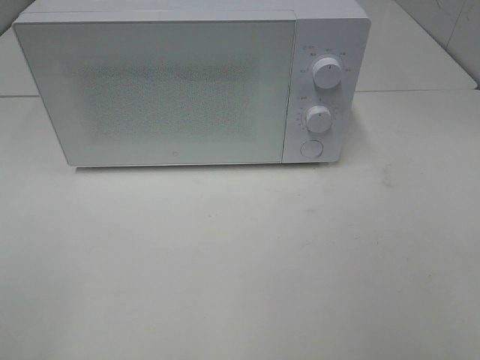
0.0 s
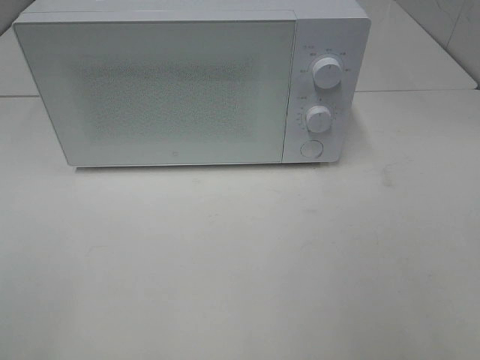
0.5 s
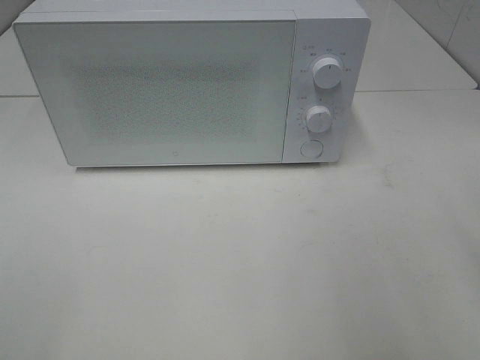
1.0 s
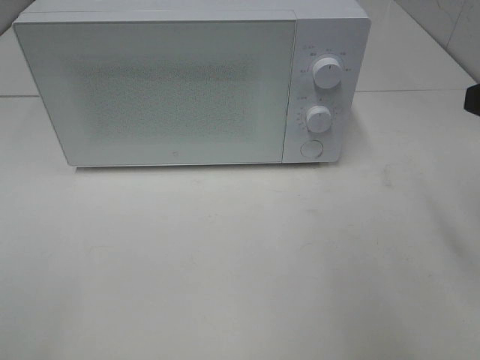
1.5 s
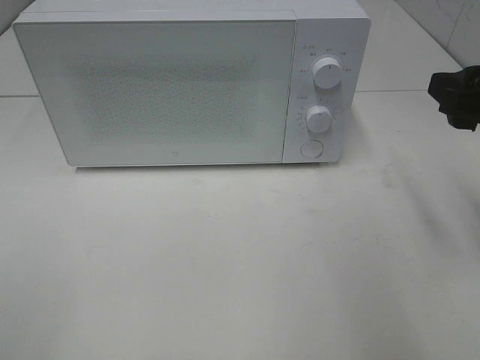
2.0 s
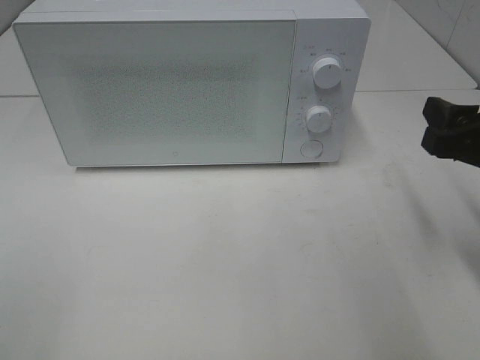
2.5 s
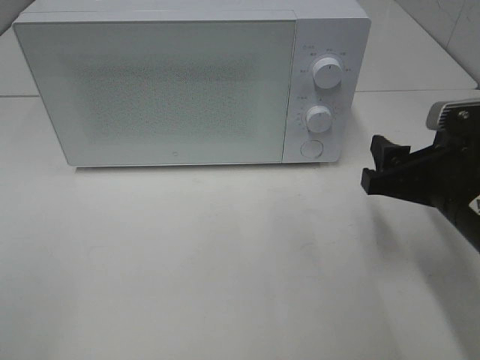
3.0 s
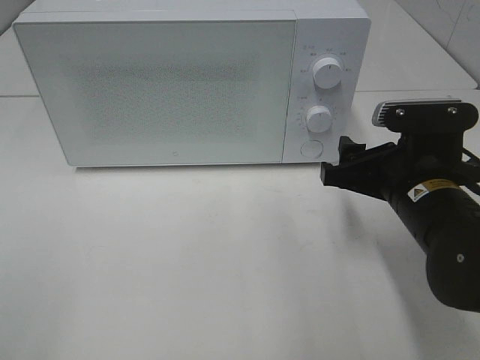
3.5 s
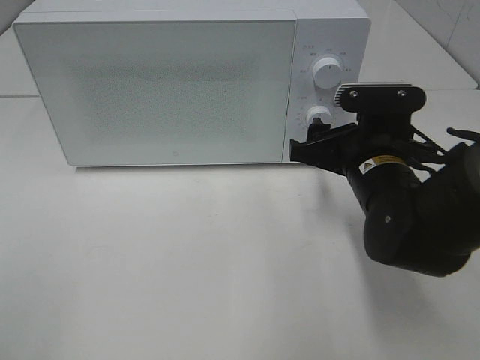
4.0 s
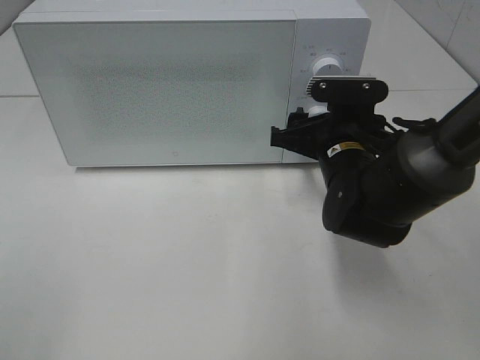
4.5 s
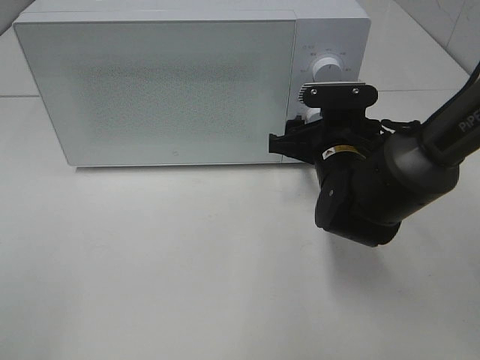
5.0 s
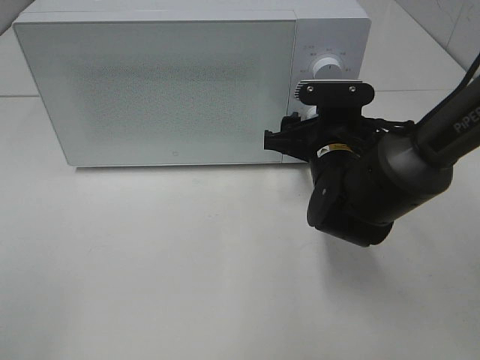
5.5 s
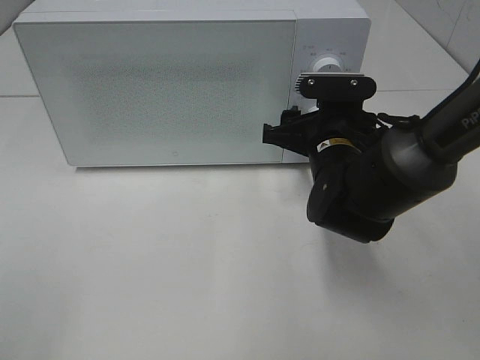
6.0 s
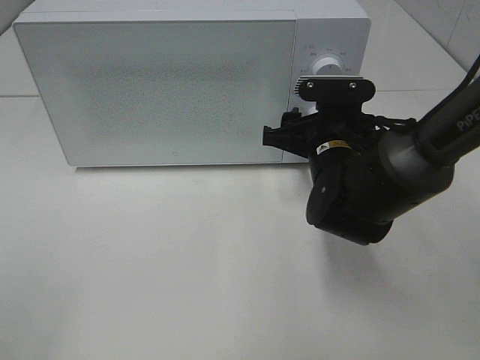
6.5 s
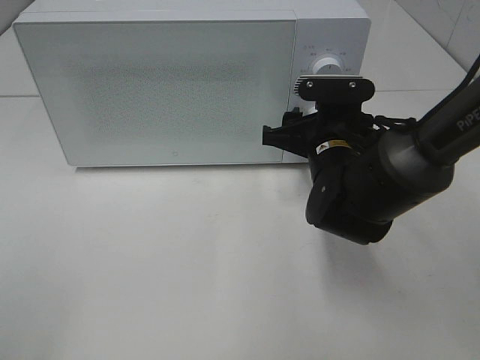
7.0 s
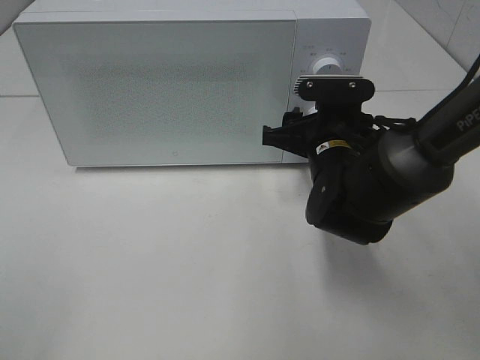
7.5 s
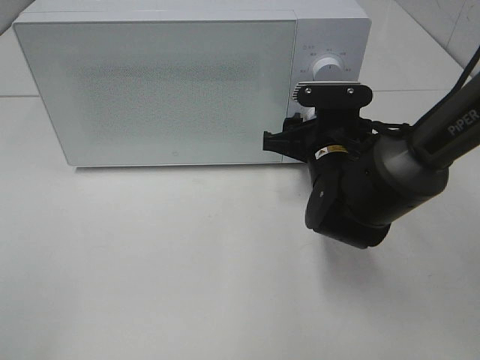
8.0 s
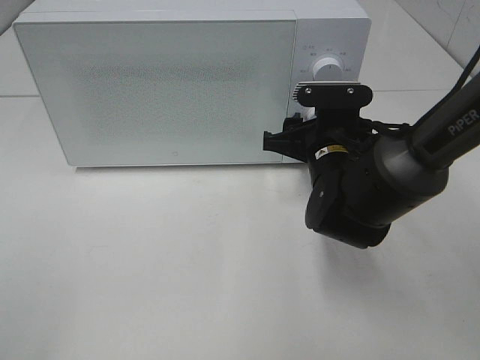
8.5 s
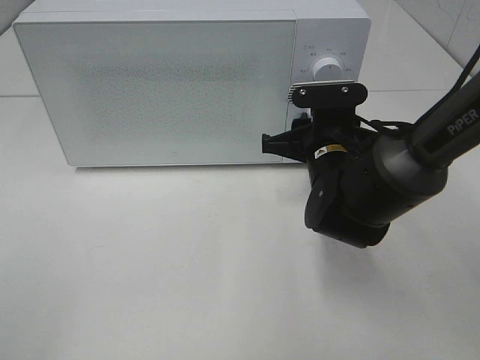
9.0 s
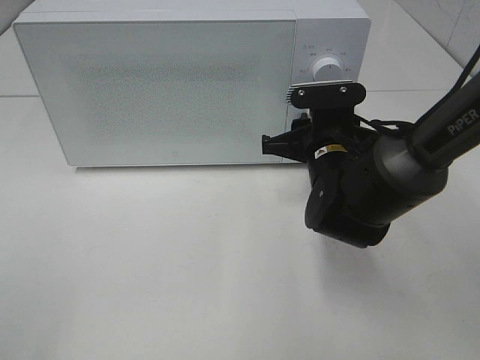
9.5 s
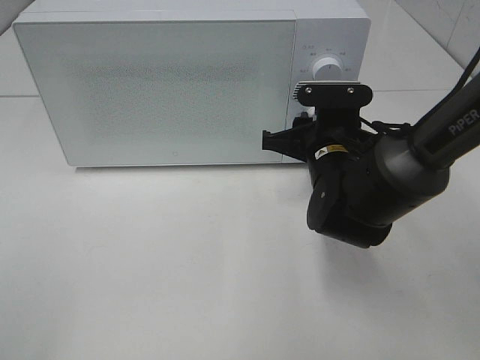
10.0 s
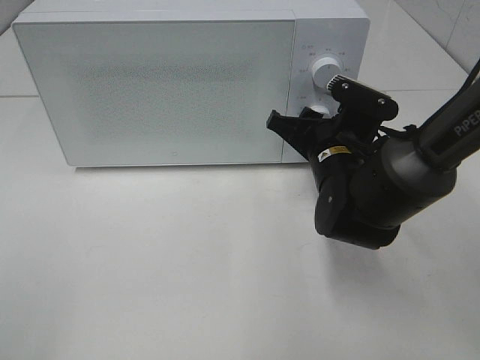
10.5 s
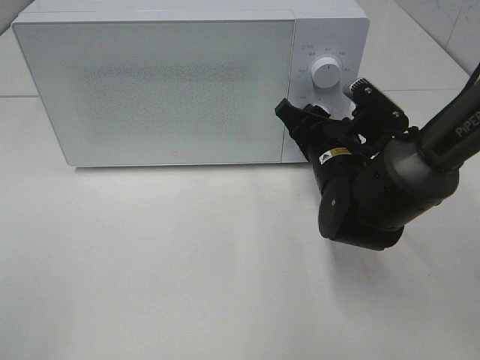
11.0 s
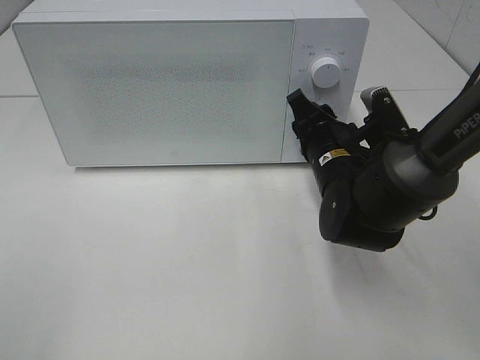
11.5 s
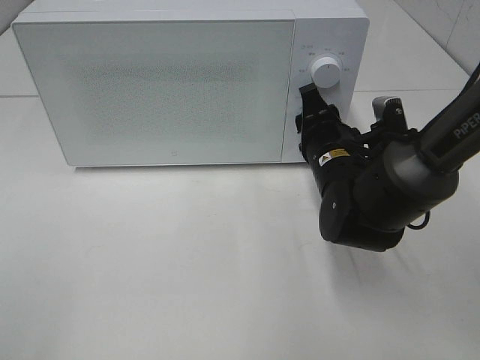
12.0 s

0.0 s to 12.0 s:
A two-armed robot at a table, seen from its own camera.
Task of the whole recording: Heat the burger.
0.0 to 2.0 s: The right gripper travels forward by approximately 20 cm.
2.0 to 4.0 s: The right gripper travels to the left, downward and forward by some 15 cm.
4.0 to 6.0 s: The right gripper changes place by some 5 cm.
6.0 to 8.0 s: Neither gripper changes place.
8.0 to 10.0 s: The two grippers keep their place.

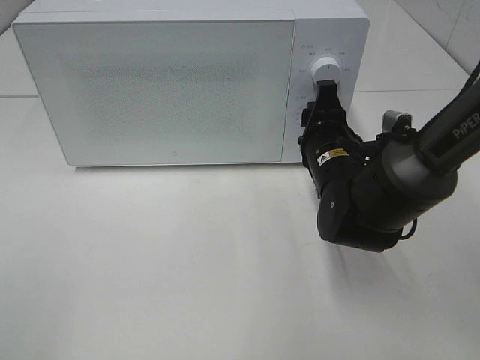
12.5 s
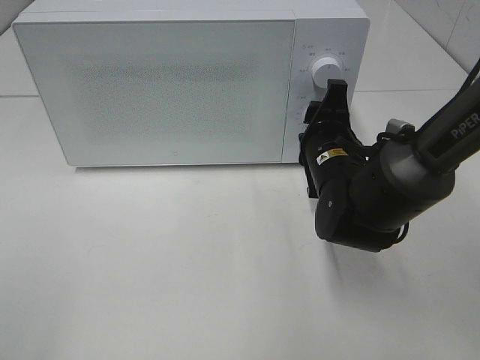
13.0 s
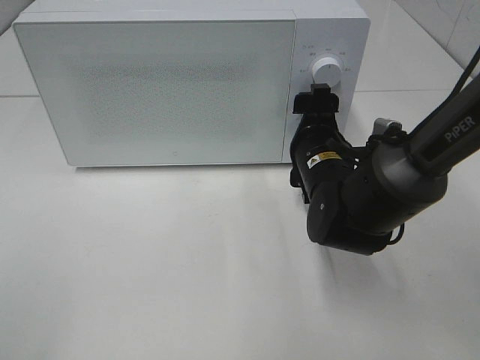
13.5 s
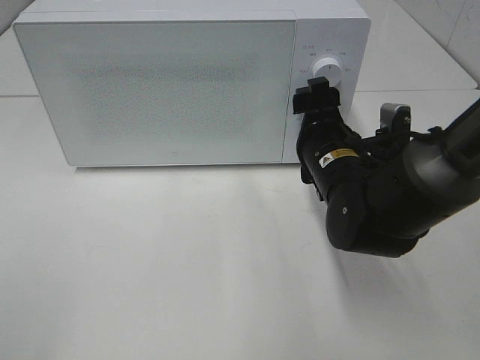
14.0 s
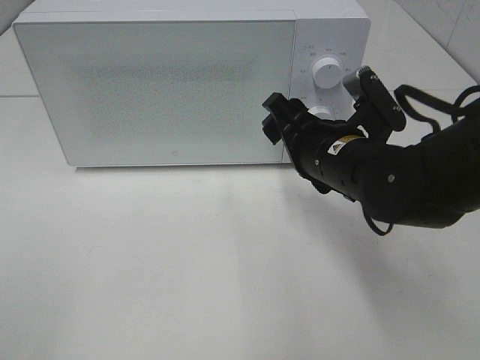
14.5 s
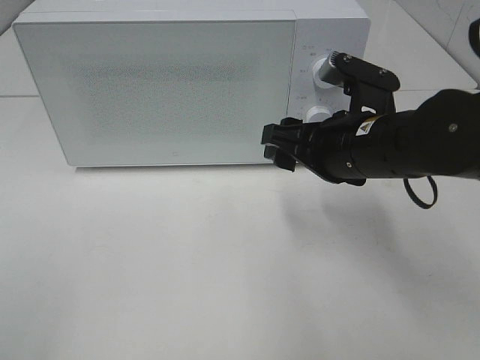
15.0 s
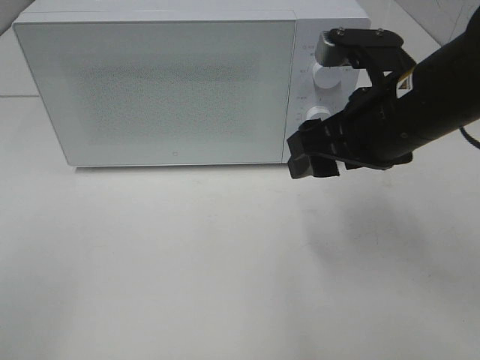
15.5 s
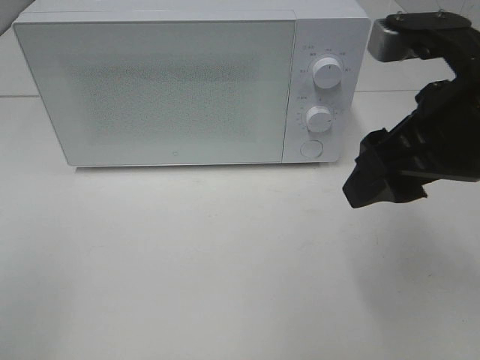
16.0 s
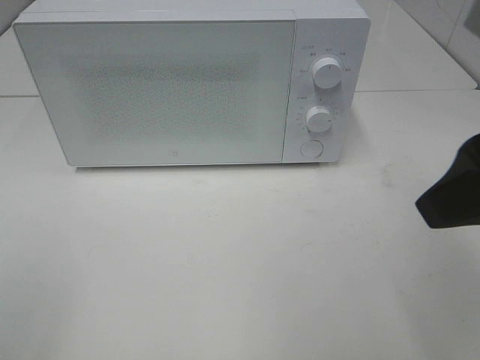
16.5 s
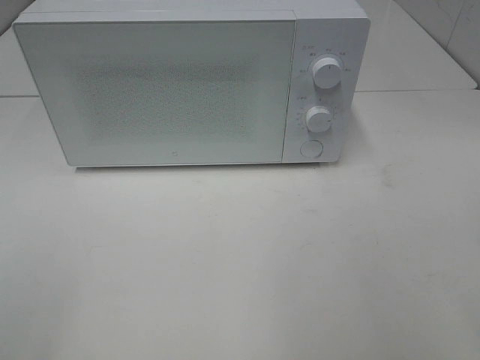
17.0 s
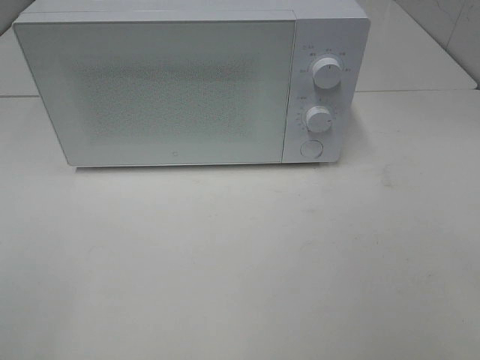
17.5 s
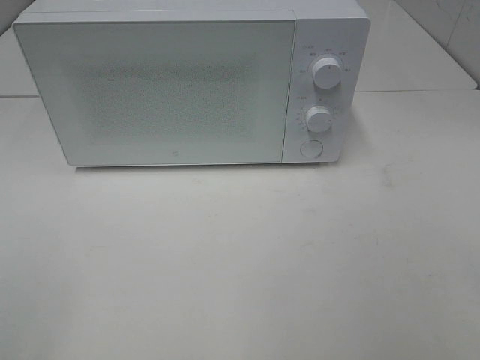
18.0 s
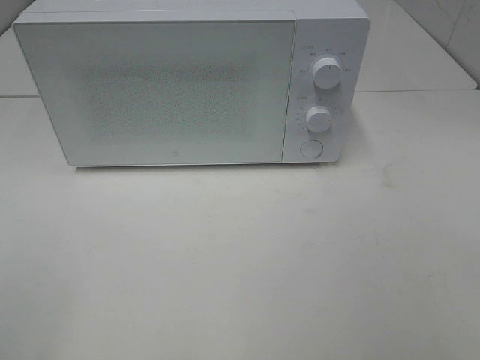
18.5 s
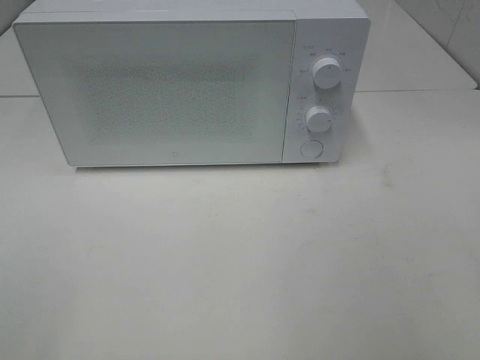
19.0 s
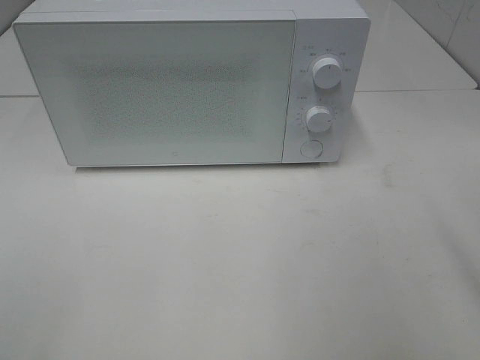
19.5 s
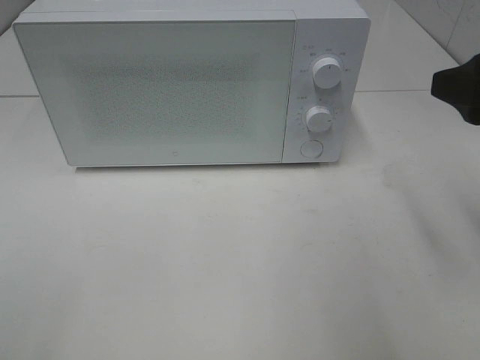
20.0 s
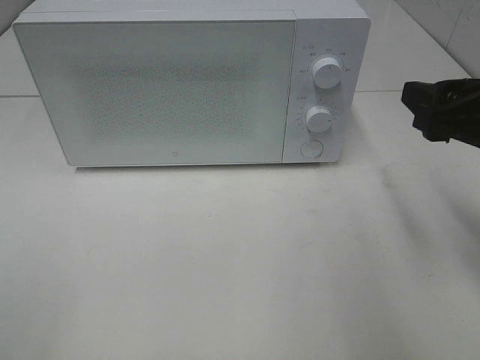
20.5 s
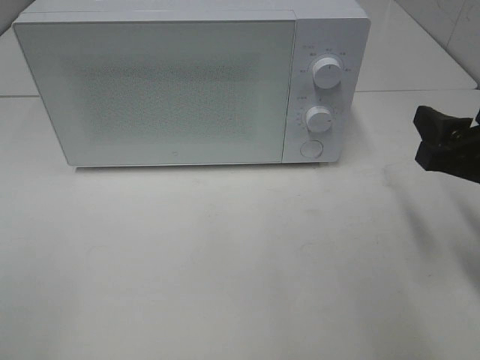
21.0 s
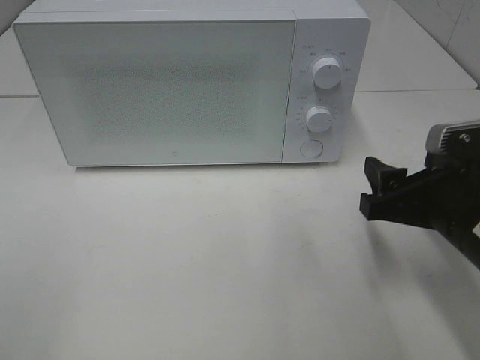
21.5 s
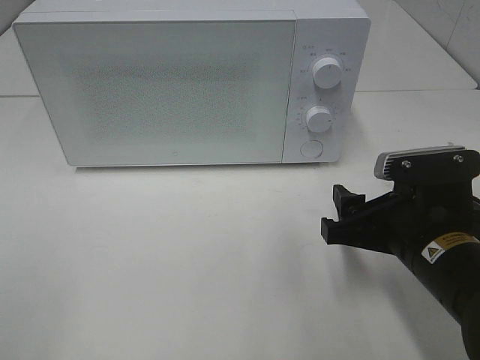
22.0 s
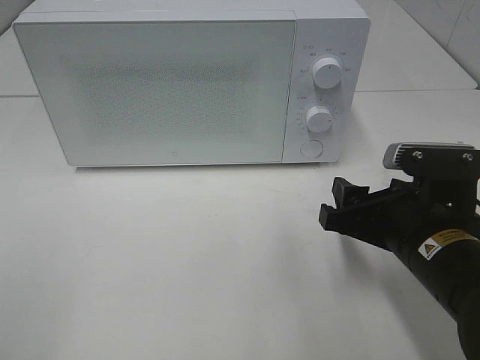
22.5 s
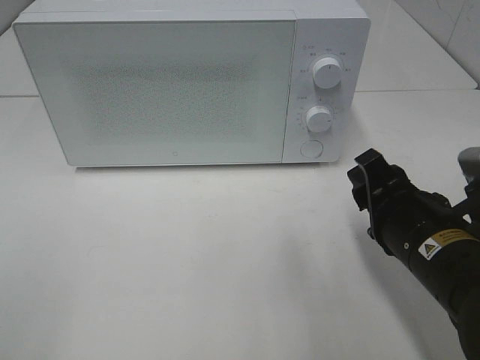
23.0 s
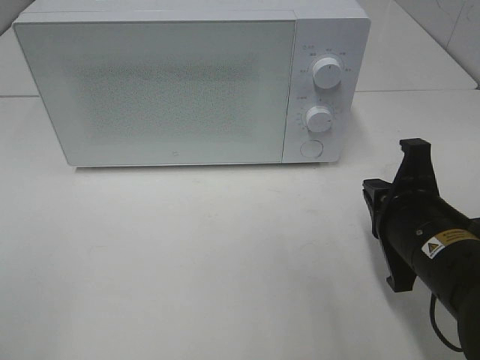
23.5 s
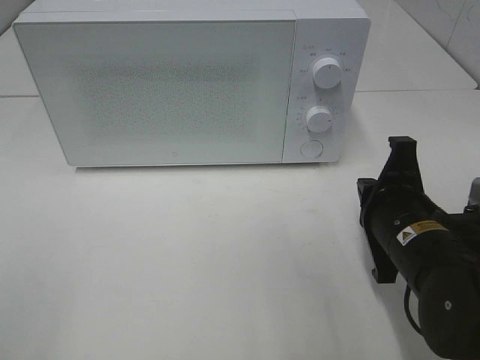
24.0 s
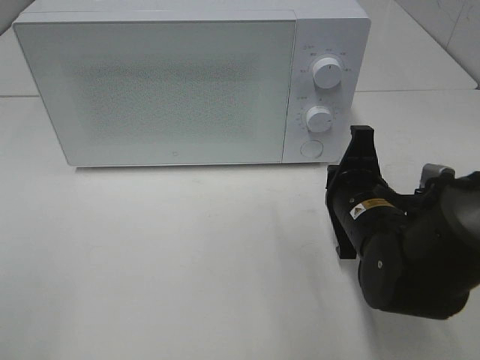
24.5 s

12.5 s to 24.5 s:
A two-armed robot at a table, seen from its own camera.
Task of the whole recording: Heat the burger.
12.5 to 14.5 s: The right gripper changes place by approximately 5 cm, and opens up.
14.5 to 16.5 s: The right gripper heads upward, backward and to the right, covering some 25 cm.
16.5 to 18.5 s: The right gripper moves backward and to the right, roughly 15 cm.
18.5 to 20.5 s: The right gripper heads forward, covering approximately 20 cm.
20.5 to 22.5 s: The right gripper goes approximately 15 cm downward and to the left.
22.5 to 24.5 s: The right gripper is displaced forward by about 5 cm, and closes.

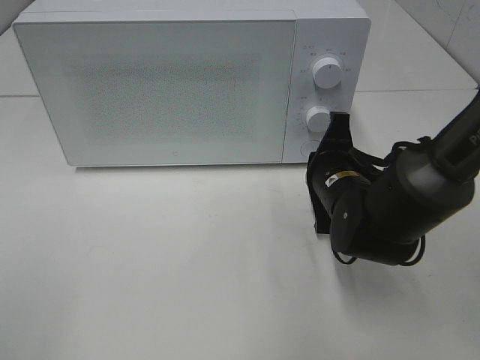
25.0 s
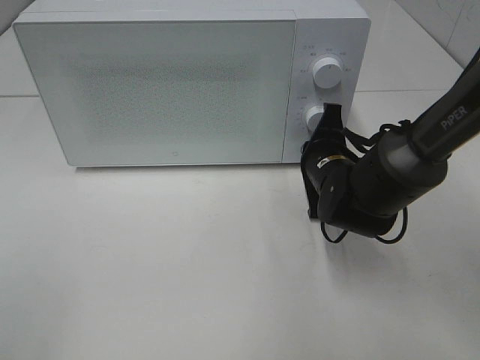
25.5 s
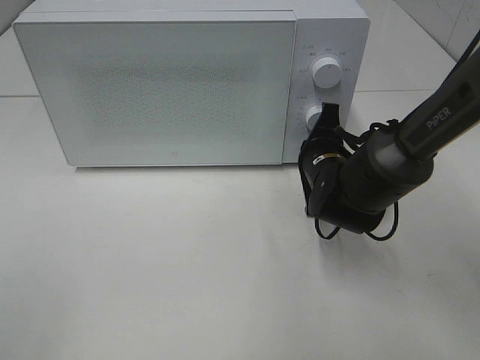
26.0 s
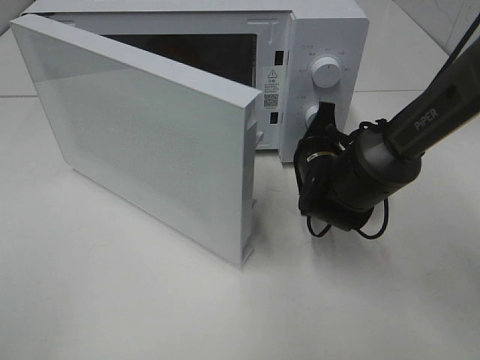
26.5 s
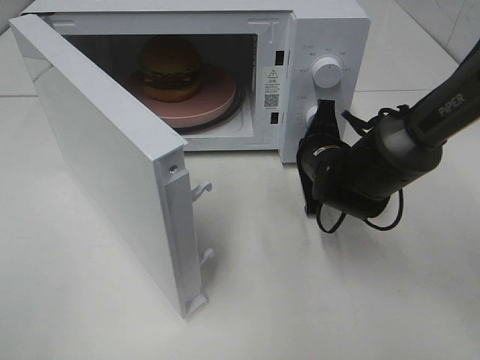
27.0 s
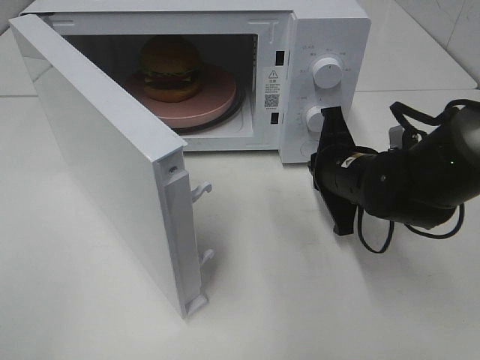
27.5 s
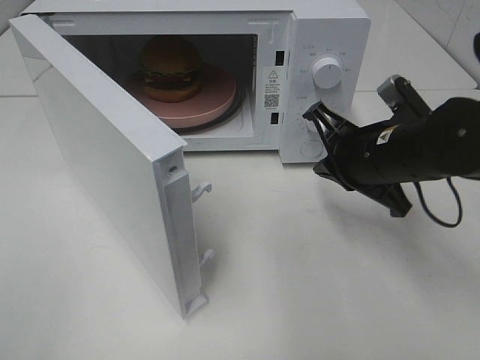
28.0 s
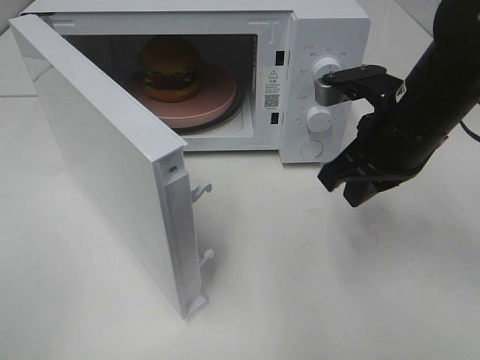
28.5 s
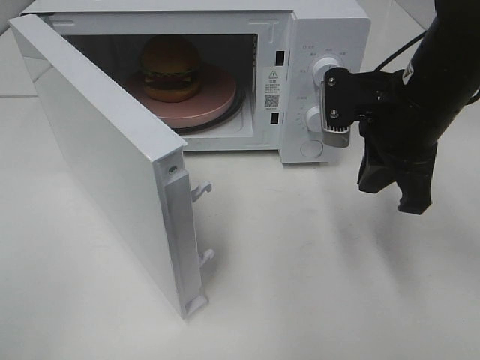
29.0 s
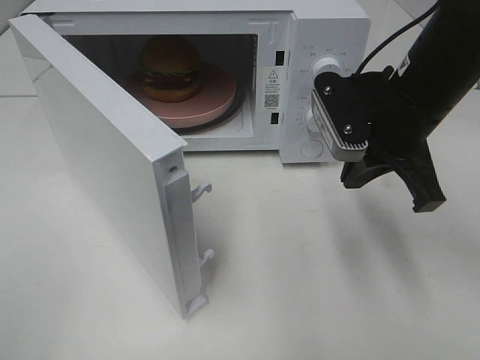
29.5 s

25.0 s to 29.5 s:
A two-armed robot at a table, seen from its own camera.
Task of the whole recording: Heat the burger.
Step, 25.0 to 27.5 s: Right hand: press the switch.
25.0 to 27.0 s: The right gripper travels forward by some 5 cm.
27.0 to 29.5 s: The right gripper goes about 15 cm upward and backward.
